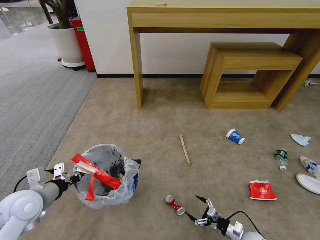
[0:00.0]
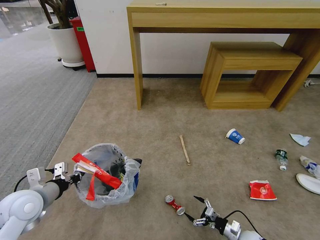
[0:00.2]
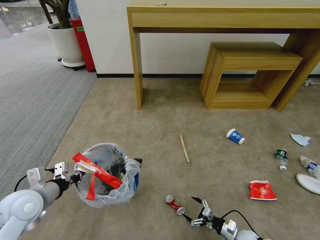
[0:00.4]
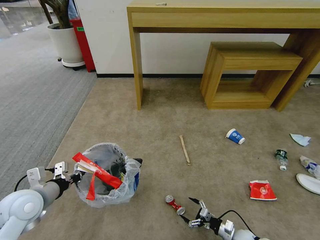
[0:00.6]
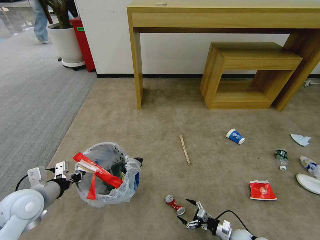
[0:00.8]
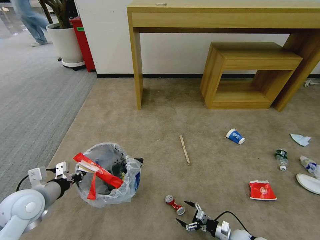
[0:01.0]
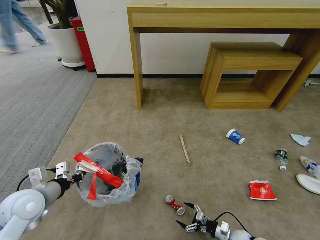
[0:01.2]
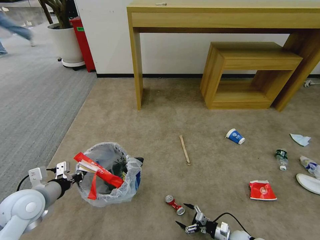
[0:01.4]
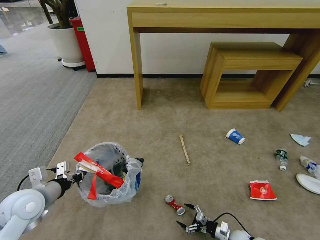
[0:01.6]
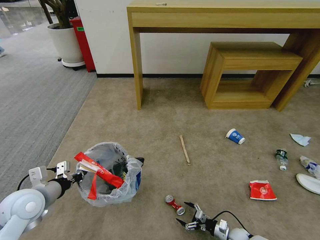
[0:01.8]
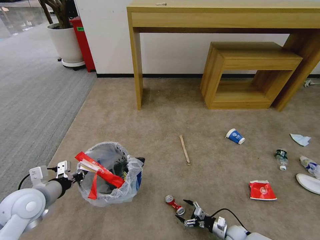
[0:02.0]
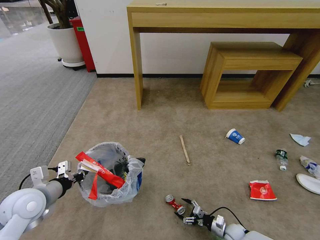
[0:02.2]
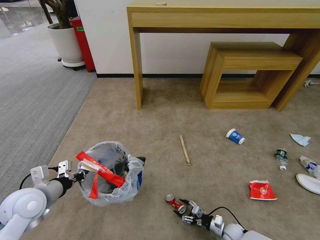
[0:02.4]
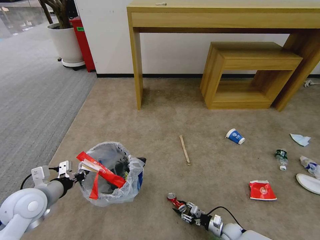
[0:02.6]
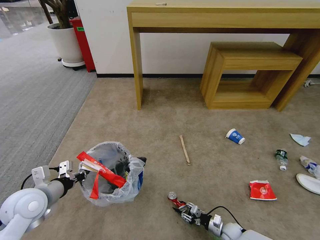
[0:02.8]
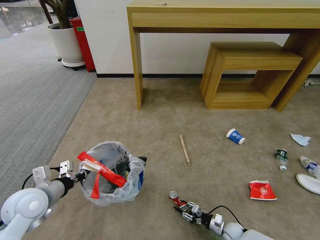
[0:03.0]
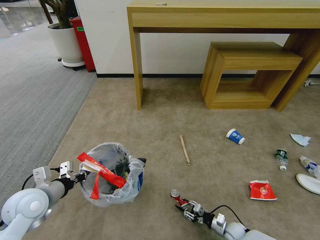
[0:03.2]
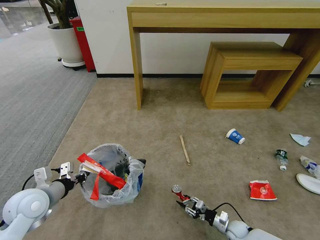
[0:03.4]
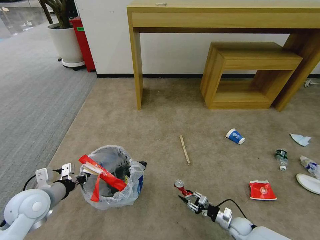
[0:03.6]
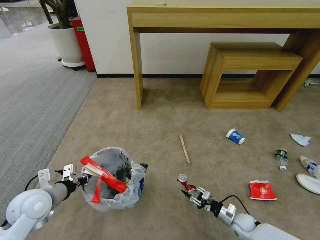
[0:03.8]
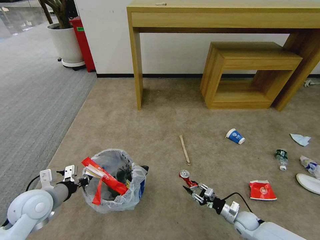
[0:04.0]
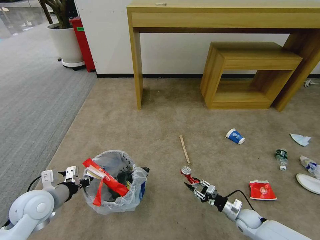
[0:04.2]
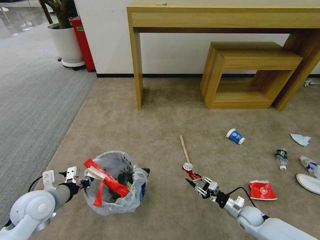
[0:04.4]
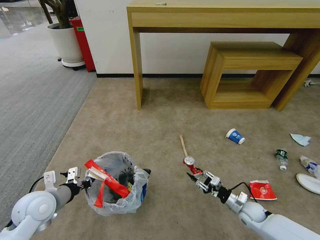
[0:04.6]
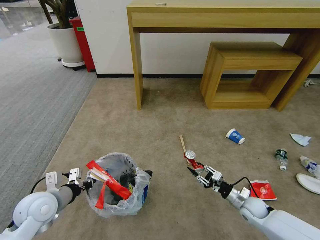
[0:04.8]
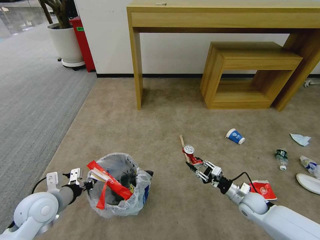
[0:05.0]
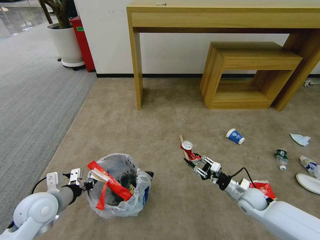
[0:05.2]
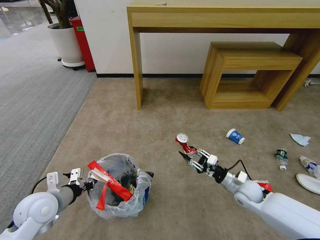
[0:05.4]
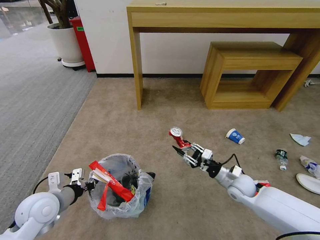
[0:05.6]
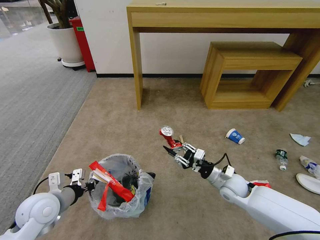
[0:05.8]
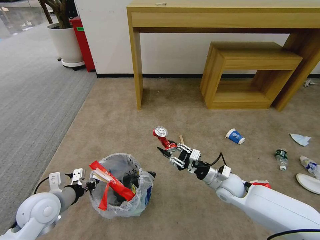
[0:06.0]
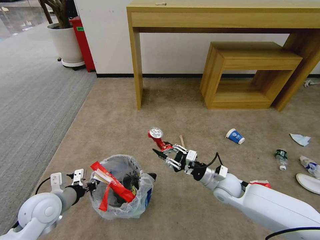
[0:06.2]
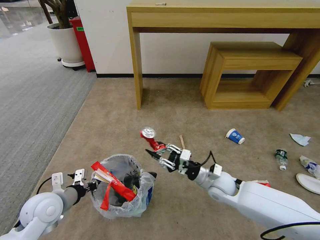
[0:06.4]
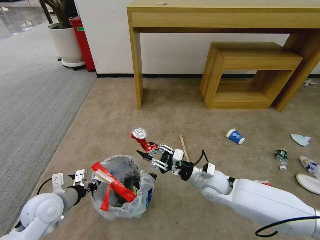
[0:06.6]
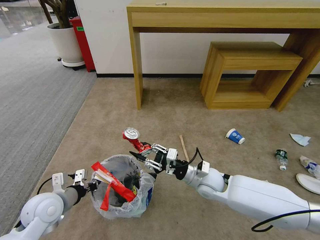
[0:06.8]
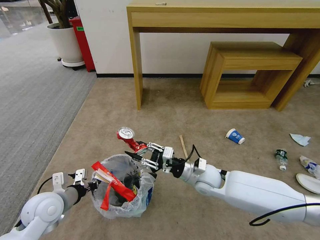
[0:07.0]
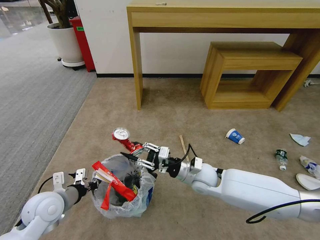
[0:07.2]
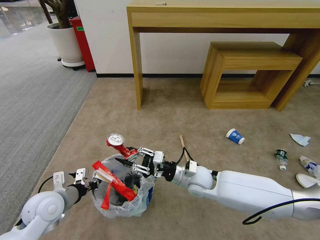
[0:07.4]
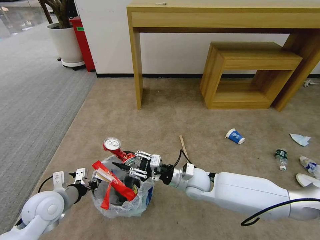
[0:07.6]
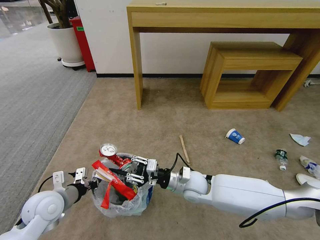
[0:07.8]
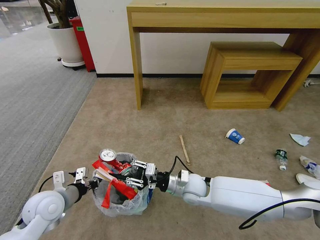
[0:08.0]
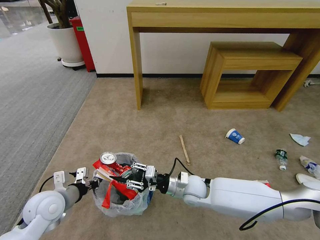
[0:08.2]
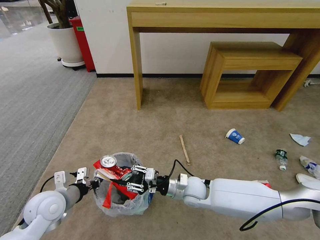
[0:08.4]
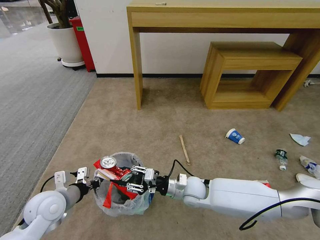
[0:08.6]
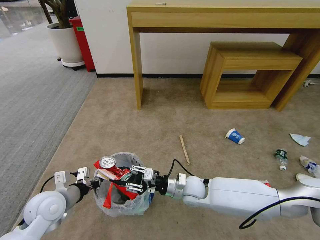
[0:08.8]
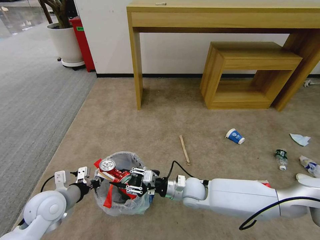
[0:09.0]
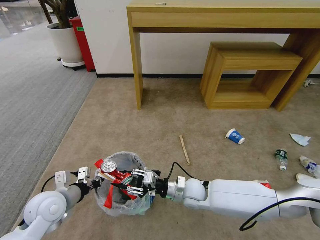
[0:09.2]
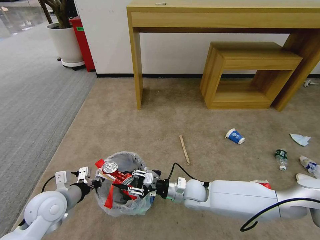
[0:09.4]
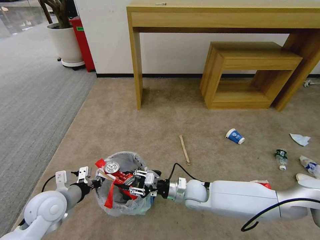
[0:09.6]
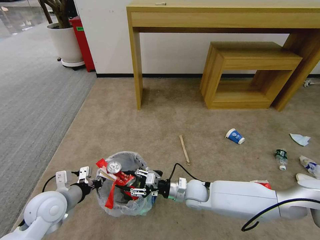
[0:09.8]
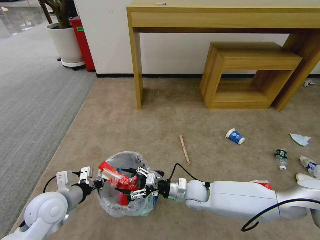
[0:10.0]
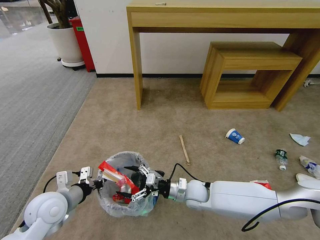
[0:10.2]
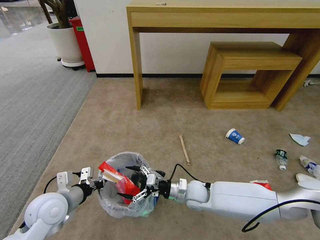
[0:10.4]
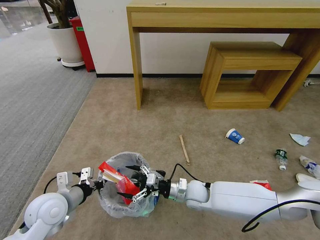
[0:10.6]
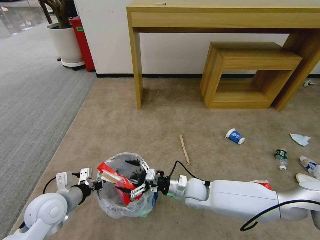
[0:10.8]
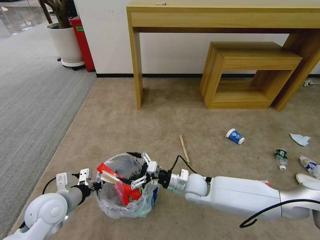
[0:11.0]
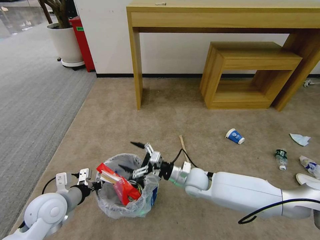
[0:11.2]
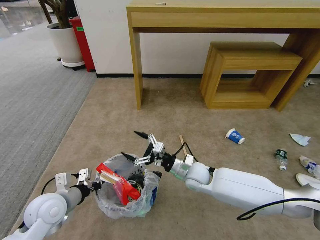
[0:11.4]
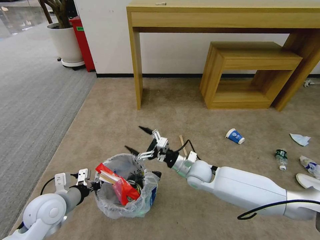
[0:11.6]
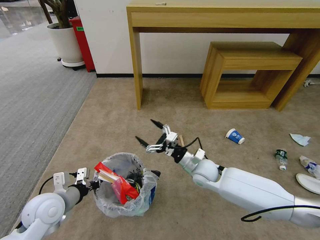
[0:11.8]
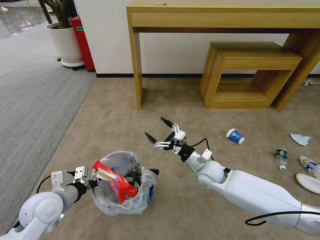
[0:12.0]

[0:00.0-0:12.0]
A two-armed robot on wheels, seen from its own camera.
Task of the whole recording: Pick up the trash bin and place the garbage on the floor into it.
0:00.0 to 0:01.6: The right gripper shifts by some 5 cm.
0:01.6 to 0:03.0: The right gripper closes its fingers.
0:03.0 to 0:04.4: The right gripper shifts roughly 10 cm upward.
0:04.4 to 0:06.0: The right gripper is displaced upward and to the left by about 20 cm.
0:06.0 to 0:07.6: The right gripper shifts some 10 cm to the left.
0:07.6 to 0:09.0: The grippers make only small movements.
0:09.0 to 0:10.4: The right gripper opens its fingers.
0:10.4 to 0:12.0: The right gripper moves upward and forward, roughly 10 cm.

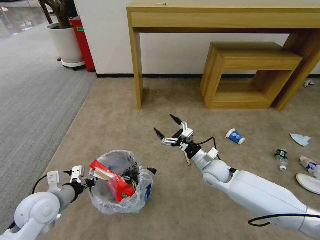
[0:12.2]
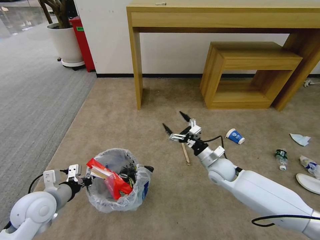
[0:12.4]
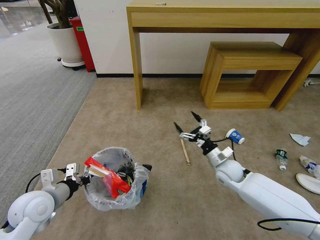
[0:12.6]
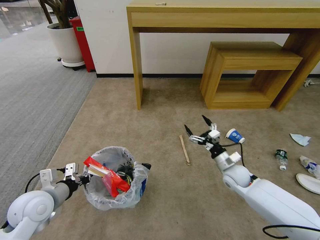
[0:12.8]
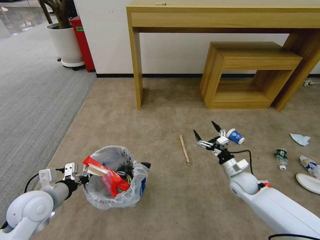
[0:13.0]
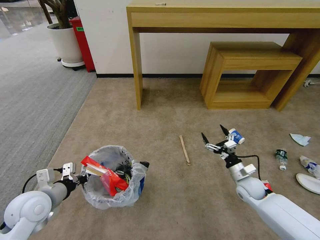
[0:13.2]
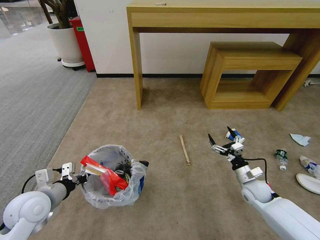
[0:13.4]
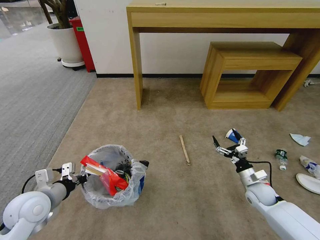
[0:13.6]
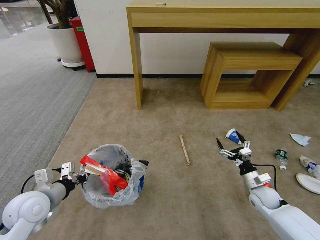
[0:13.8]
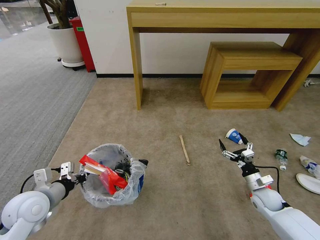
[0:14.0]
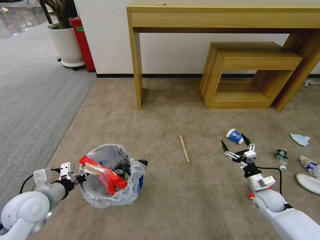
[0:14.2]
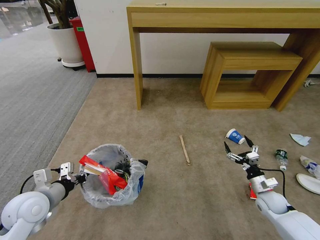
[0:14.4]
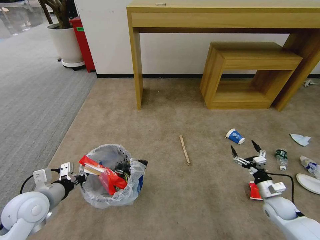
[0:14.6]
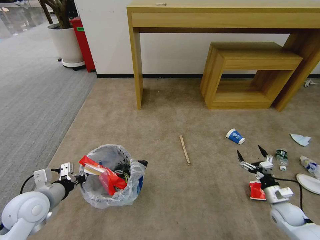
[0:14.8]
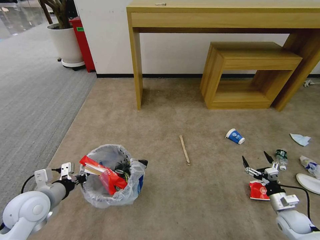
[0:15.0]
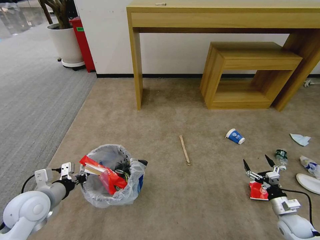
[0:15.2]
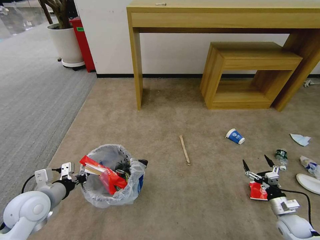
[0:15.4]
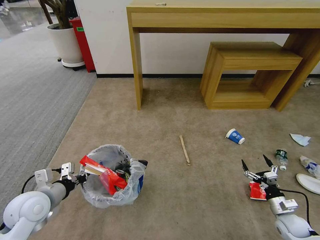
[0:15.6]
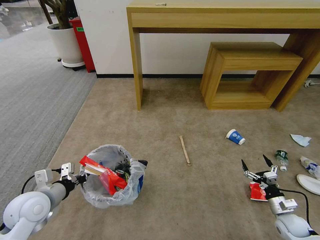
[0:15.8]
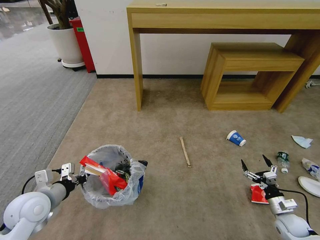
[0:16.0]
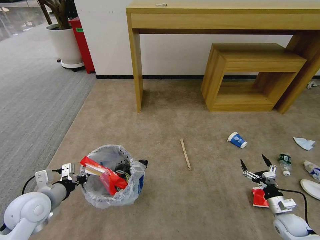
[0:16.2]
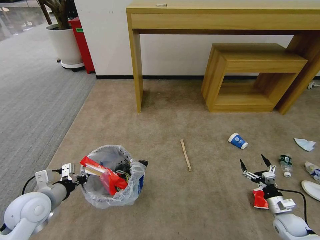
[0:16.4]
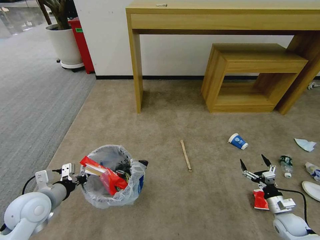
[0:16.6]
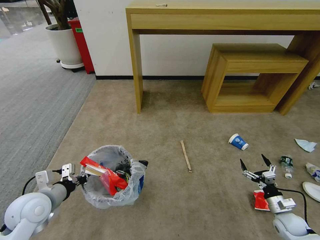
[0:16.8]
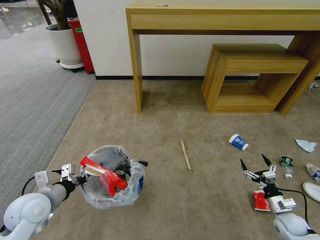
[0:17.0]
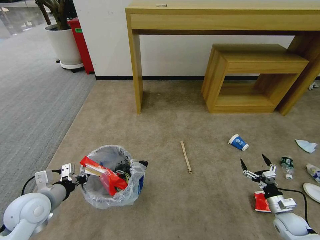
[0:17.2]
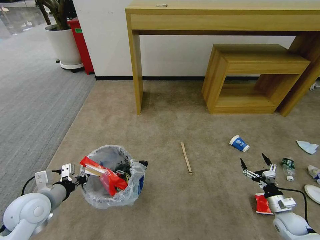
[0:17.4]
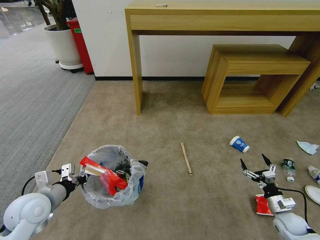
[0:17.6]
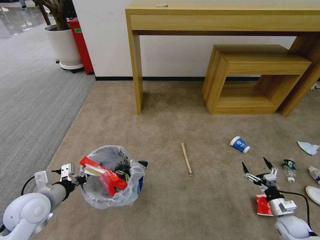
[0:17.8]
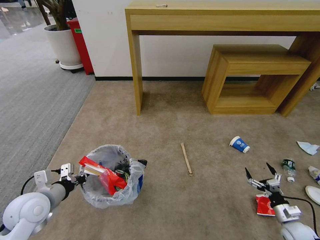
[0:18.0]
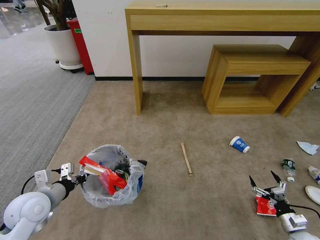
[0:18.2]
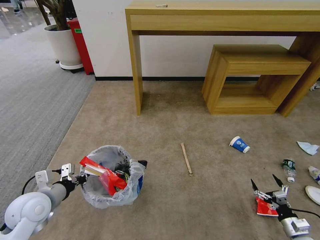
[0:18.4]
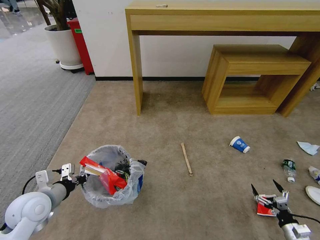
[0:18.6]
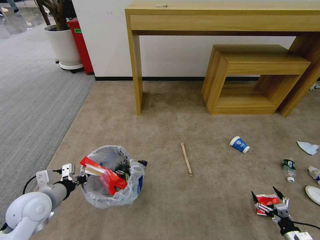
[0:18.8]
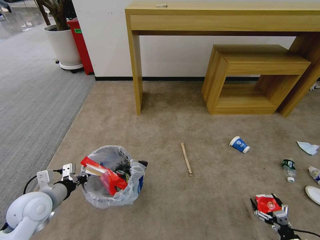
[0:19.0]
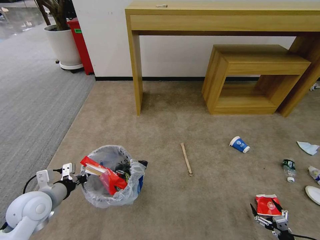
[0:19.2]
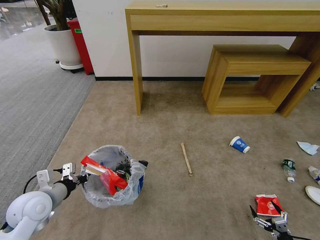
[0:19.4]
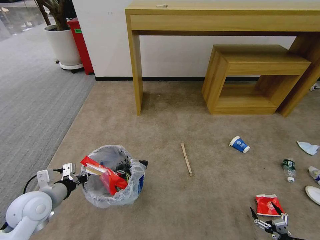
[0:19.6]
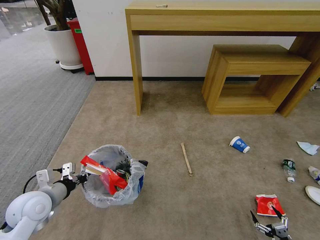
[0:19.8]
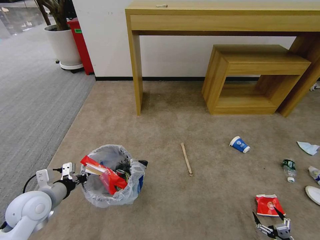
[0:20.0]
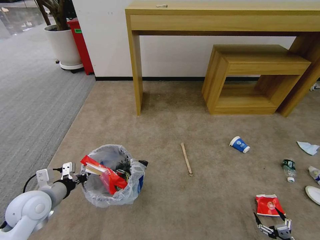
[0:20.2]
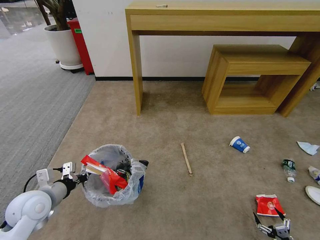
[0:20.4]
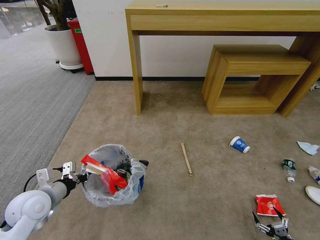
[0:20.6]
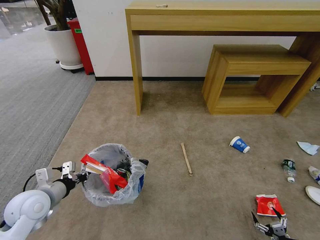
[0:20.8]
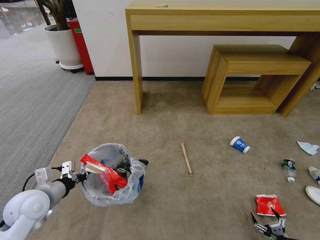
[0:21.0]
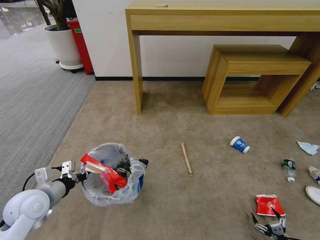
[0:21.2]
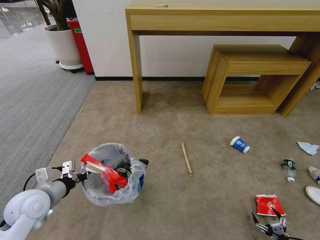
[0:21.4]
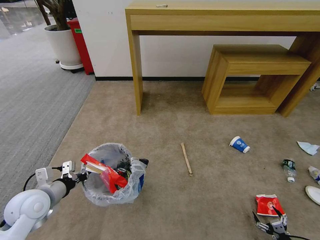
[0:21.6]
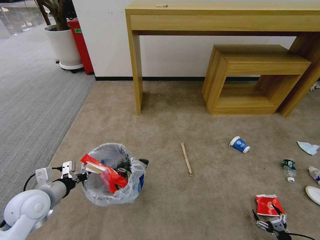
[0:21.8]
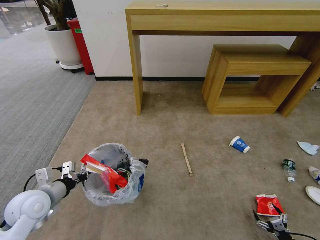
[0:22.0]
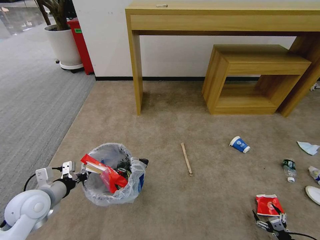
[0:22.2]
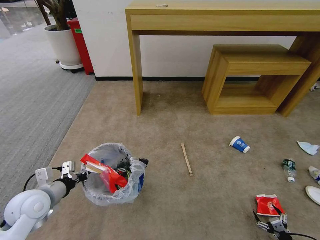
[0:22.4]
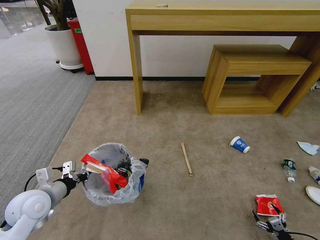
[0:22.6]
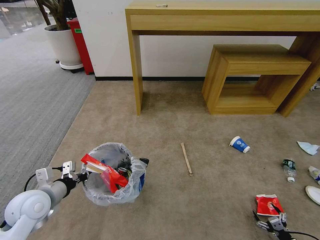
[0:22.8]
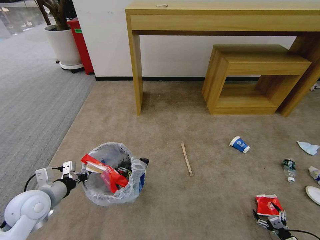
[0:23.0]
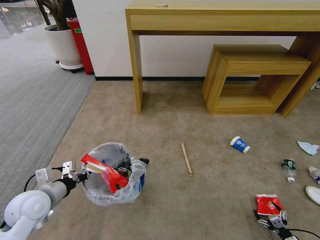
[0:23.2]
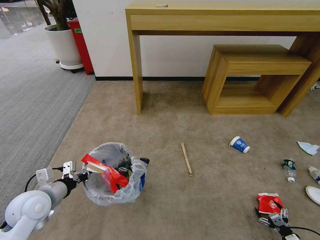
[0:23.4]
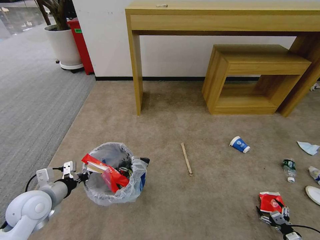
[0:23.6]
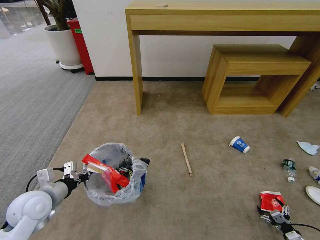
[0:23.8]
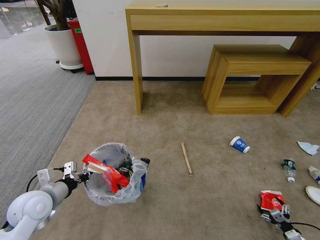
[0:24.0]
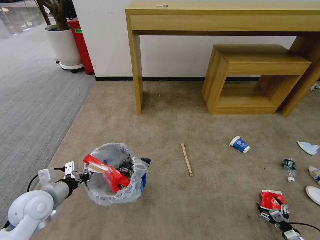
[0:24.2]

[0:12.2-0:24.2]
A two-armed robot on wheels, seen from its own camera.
Task of the whole recording: Pick up the trash bin and place the garbage on the floor into it.
0:12.2 to 0:13.8: The right gripper goes about 20 cm to the right and downward.
0:13.8 to 0:15.2: The right gripper heads to the right and backward, covering about 10 cm.
0:15.2 to 0:16.6: Neither gripper changes place.
0:16.6 to 0:18.2: The right gripper heads backward, covering approximately 5 cm.
0:18.2 to 0:19.8: The right gripper goes some 15 cm backward and downward.
0:19.8 to 0:21.2: The grippers move only a little.
0:21.2 to 0:22.6: The grippers move only a little.
0:22.6 to 0:24.2: The grippers stay close to where they were, moving slightly.
